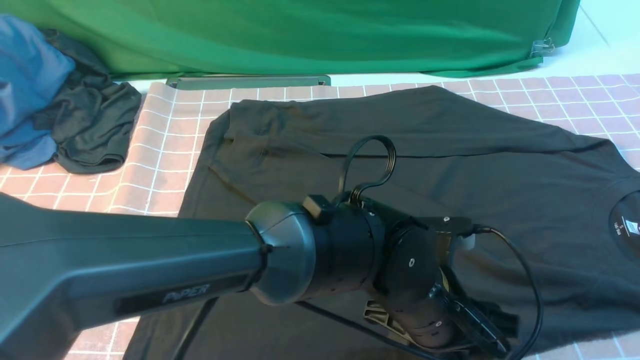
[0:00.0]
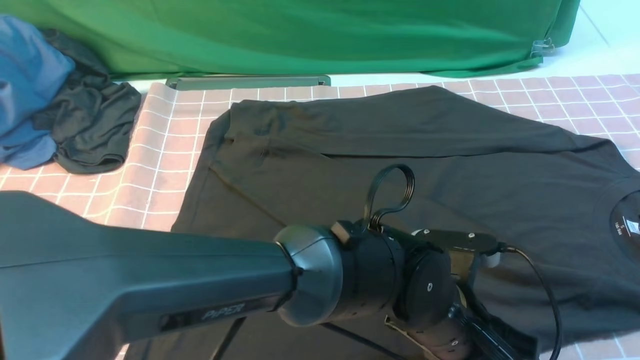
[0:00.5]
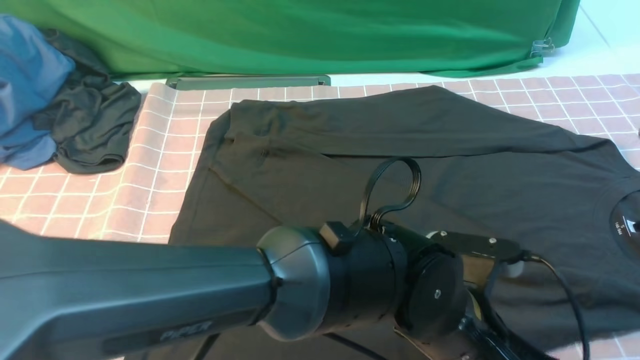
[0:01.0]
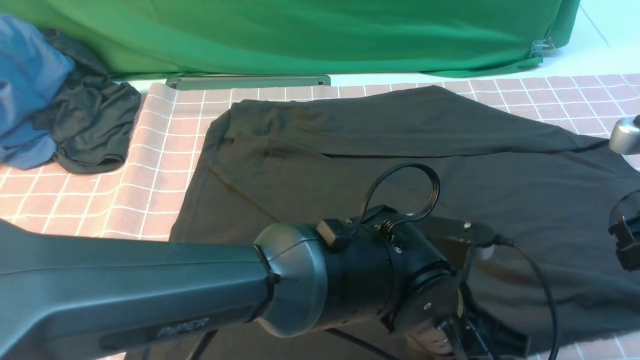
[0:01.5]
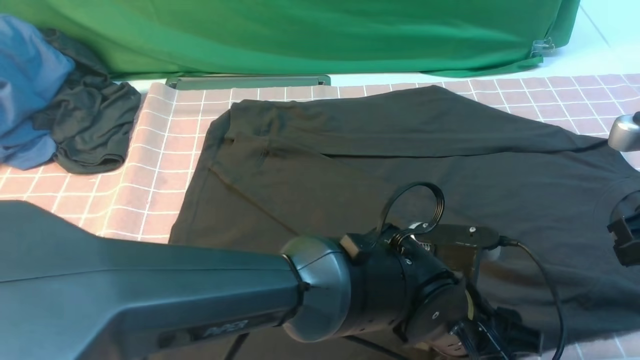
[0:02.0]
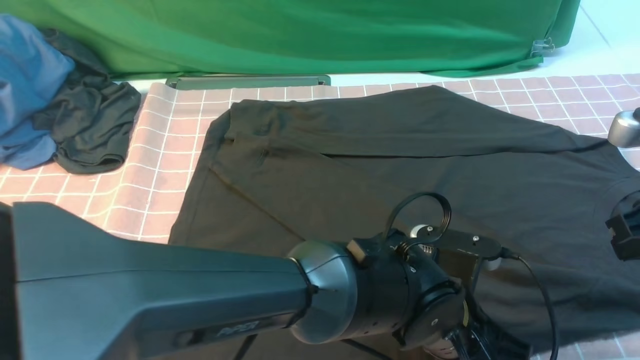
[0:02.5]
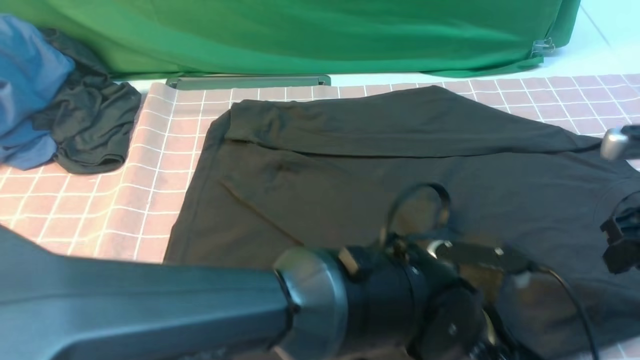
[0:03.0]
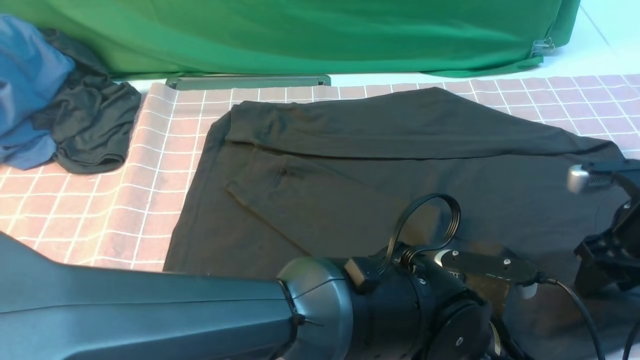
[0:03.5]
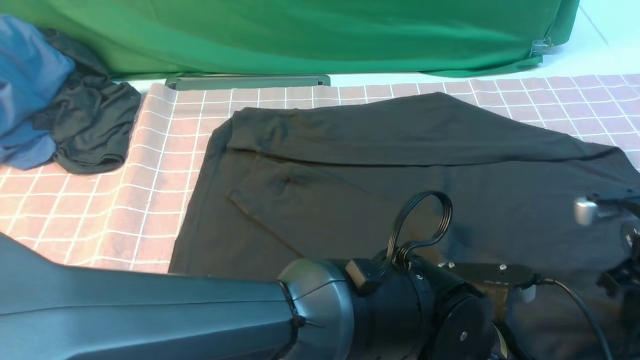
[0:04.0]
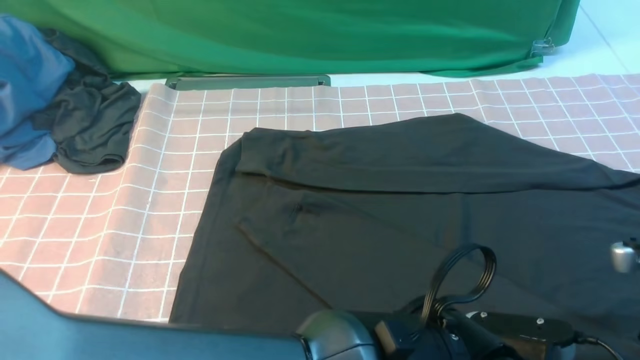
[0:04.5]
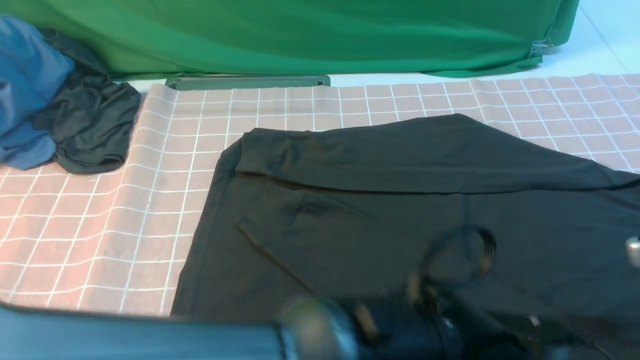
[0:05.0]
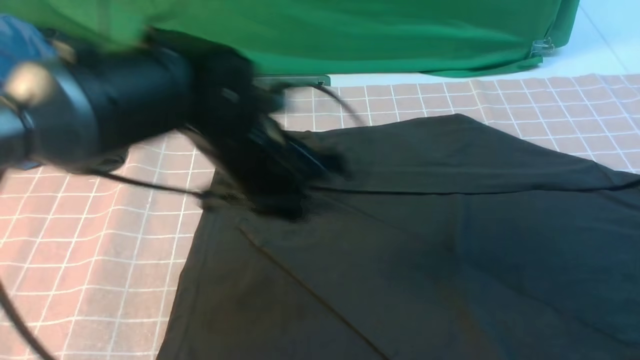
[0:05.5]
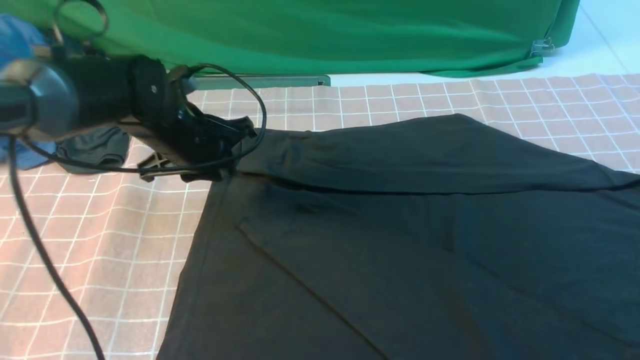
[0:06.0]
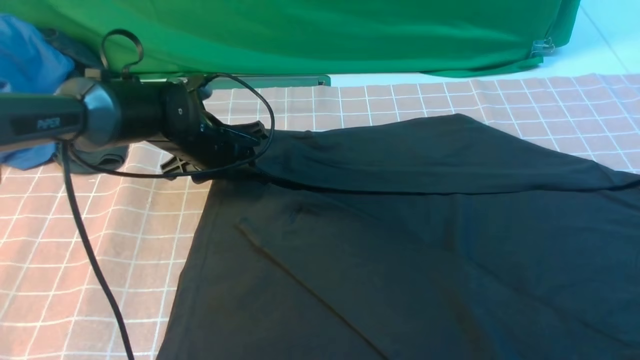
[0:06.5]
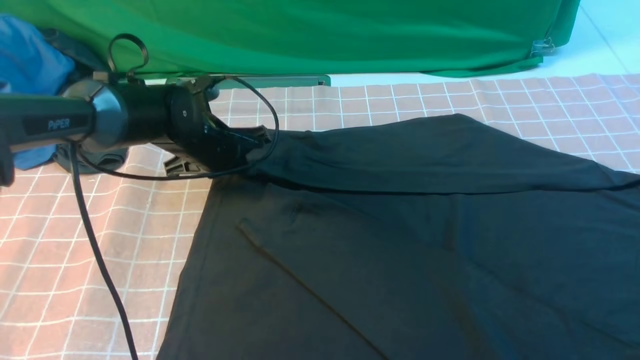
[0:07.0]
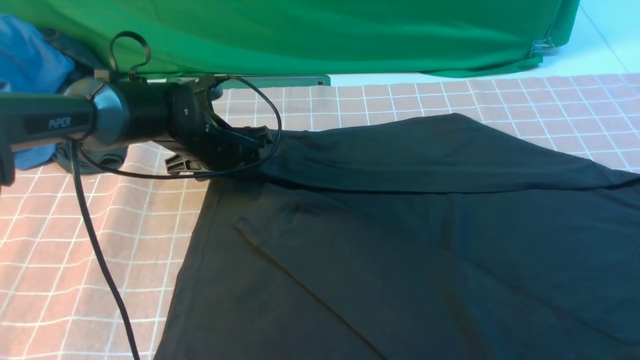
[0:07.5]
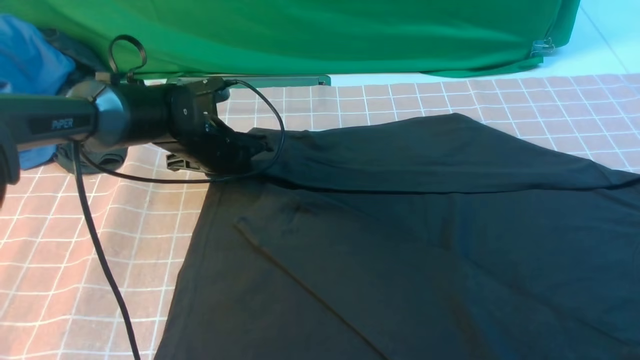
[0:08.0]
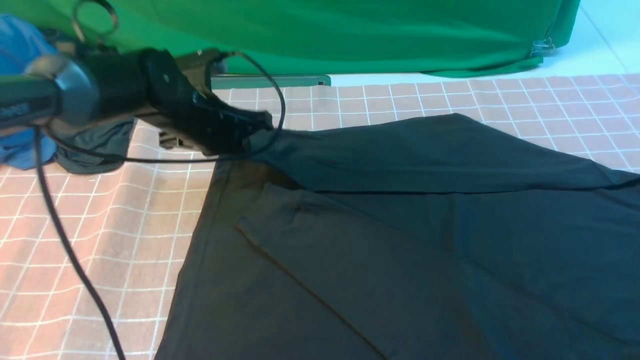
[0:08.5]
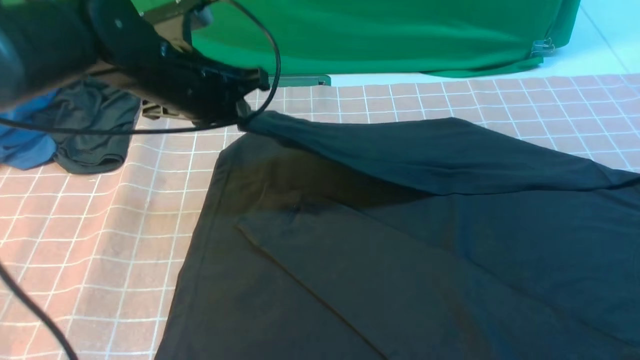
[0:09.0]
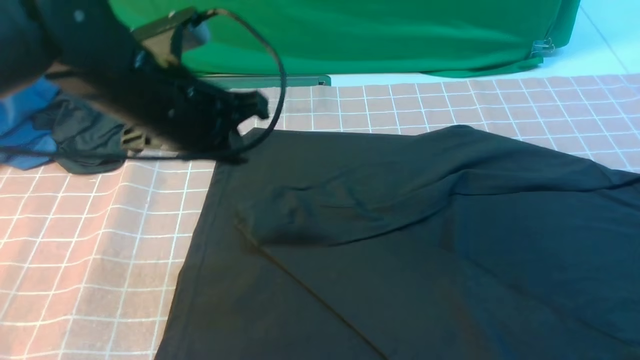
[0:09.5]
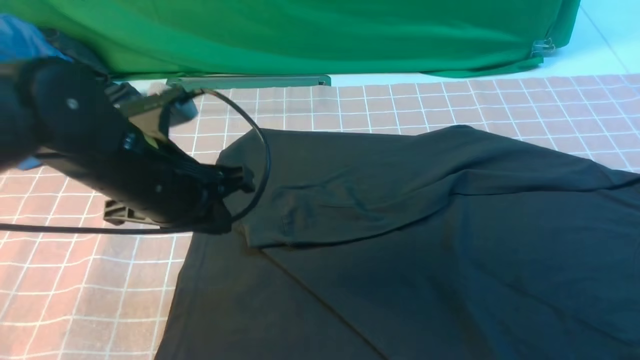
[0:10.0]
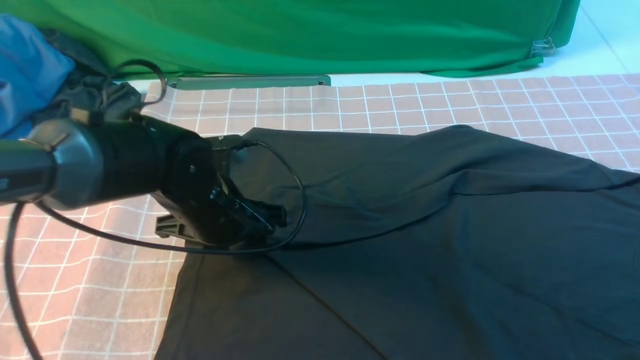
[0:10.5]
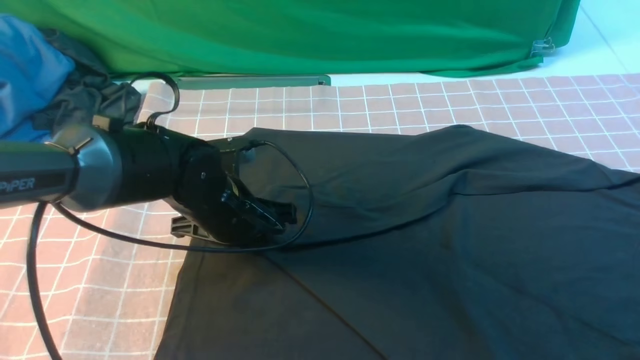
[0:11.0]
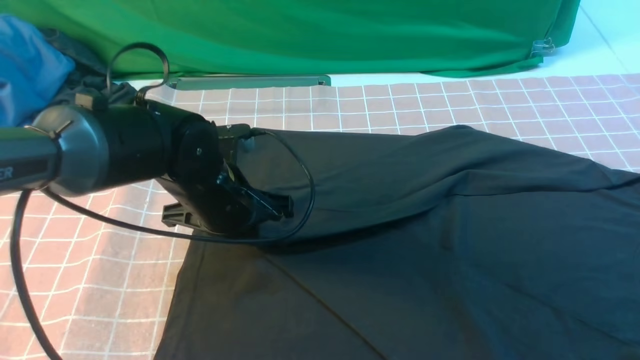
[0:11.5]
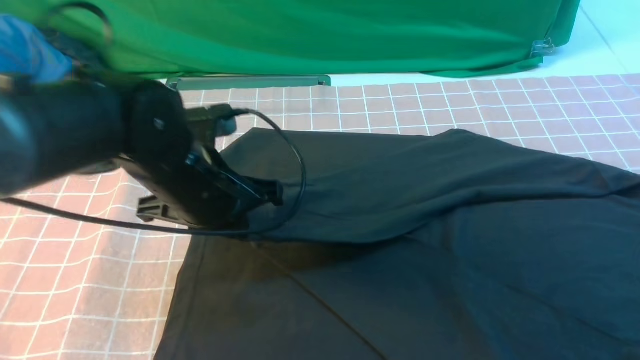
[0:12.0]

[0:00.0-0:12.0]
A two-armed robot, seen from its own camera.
Step, 0:00.0 to 0:08.0: use the left arm to clamp the cuff farthest from it.
0:00.0 to 0:02.0: The right gripper heads downward, covering approximately 5 cm; the left gripper closes and opens again.
0:02.0 to 0:04.0: The left gripper is displaced backward by some 5 cm, and closes. Meanwhile the right gripper heads downward, covering approximately 10 cm, and opens, then closes again.
0:04.0 to 0:06.0: The left gripper travels to the left and forward by some 35 cm, and opens up. Meanwhile the right gripper heads upward and backward, covering roughly 15 cm, and opens, then closes once more.
0:06.0 to 0:08.0: The left gripper ends up approximately 5 cm from where it was, and opens, then closes once more.
0:08.0 to 0:10.0: The left gripper shifts about 20 cm backward and upward.
0:10.0 to 0:12.0: The left gripper reaches about 10 cm downward, then returns, and opens, then closes once more.

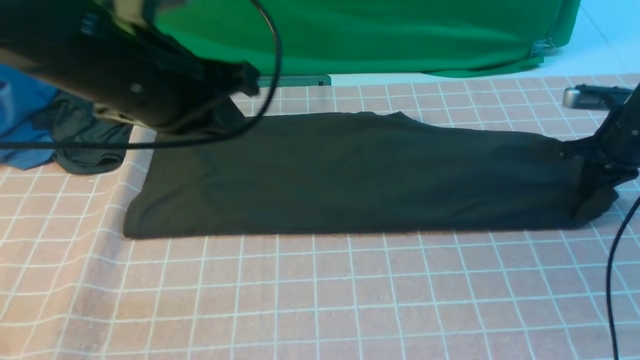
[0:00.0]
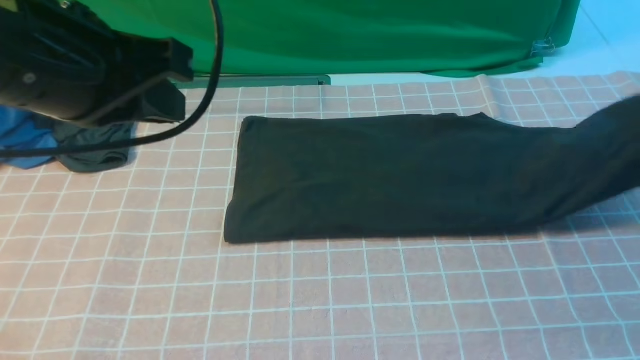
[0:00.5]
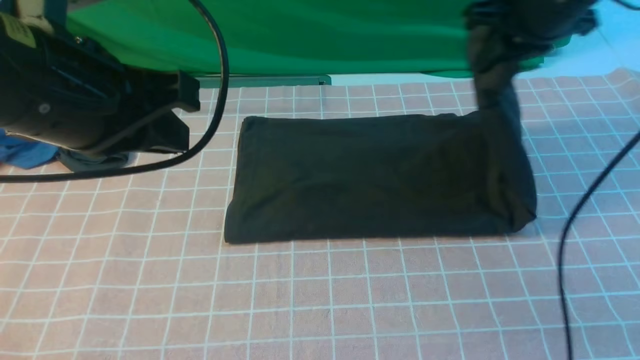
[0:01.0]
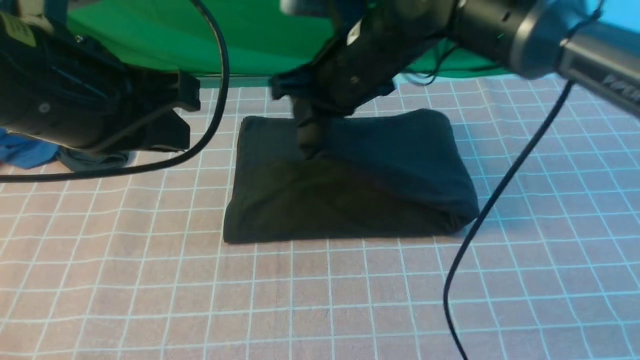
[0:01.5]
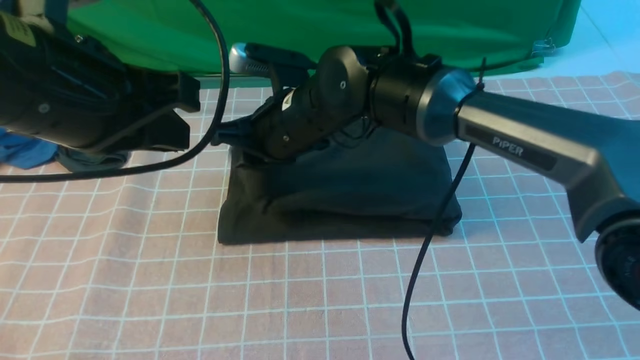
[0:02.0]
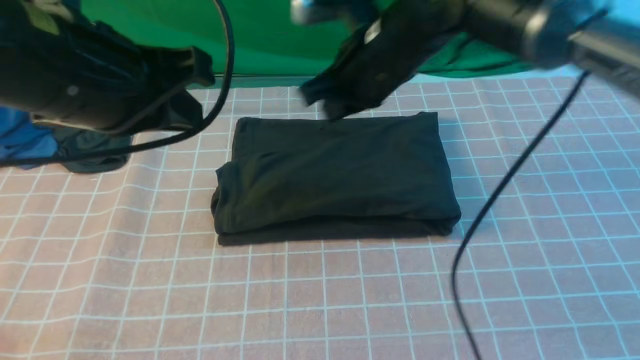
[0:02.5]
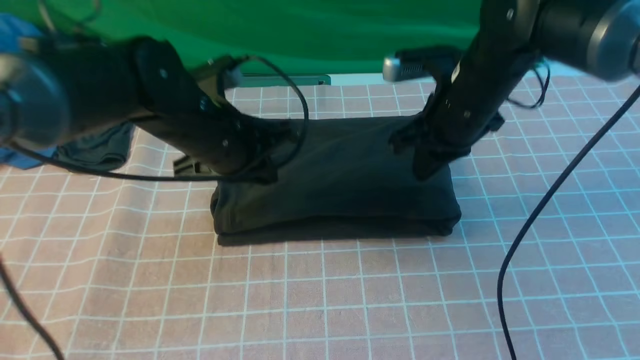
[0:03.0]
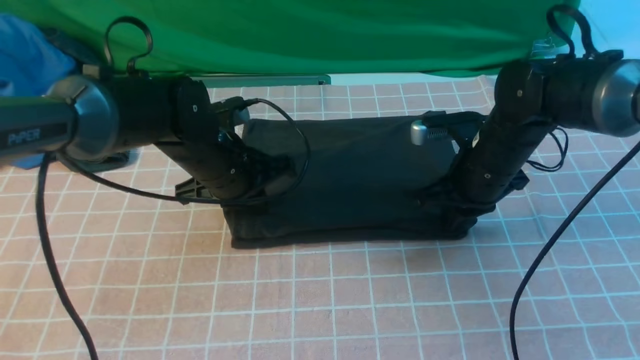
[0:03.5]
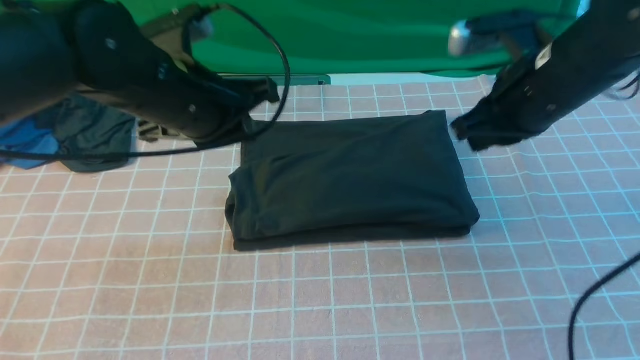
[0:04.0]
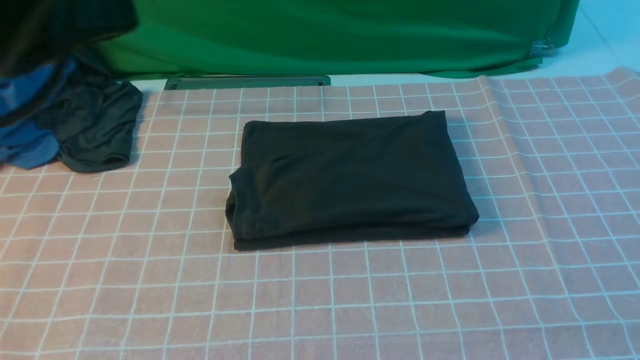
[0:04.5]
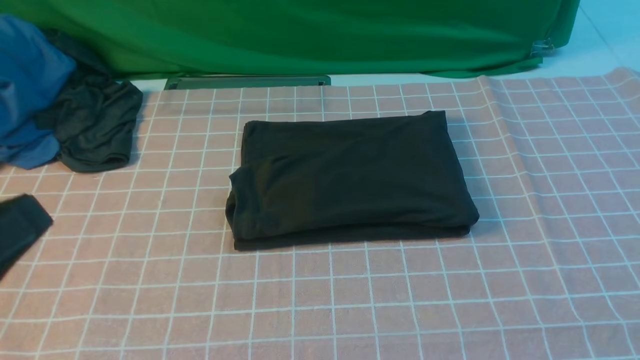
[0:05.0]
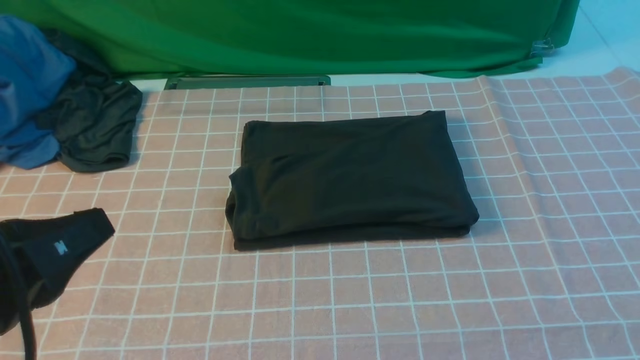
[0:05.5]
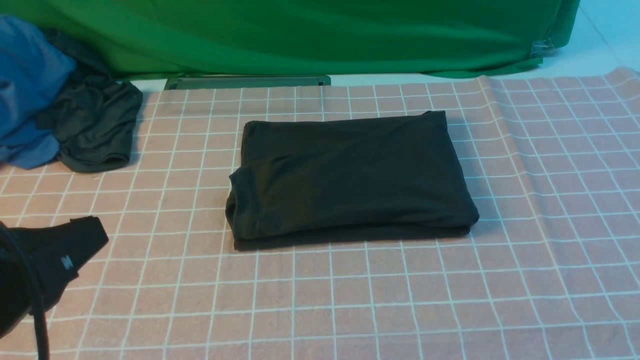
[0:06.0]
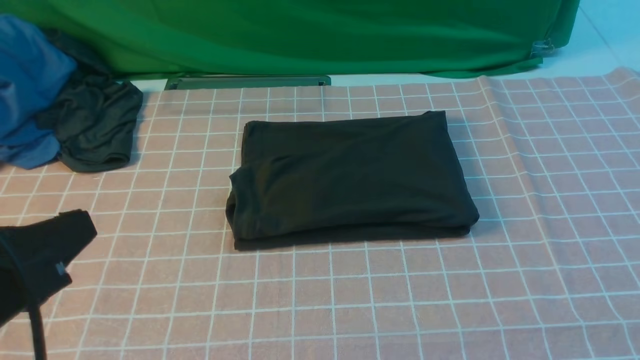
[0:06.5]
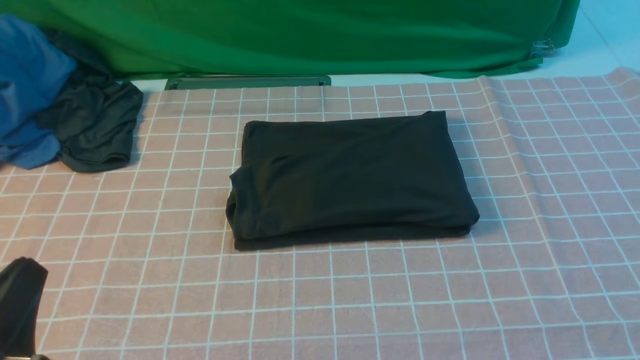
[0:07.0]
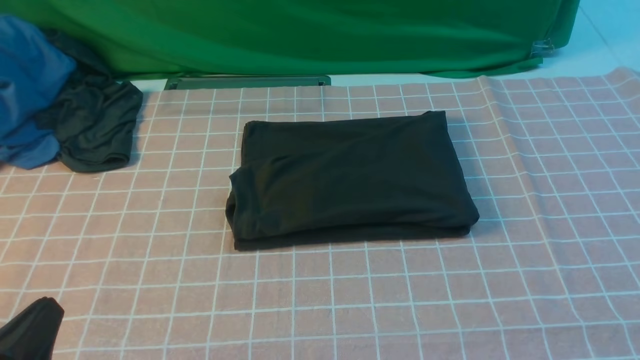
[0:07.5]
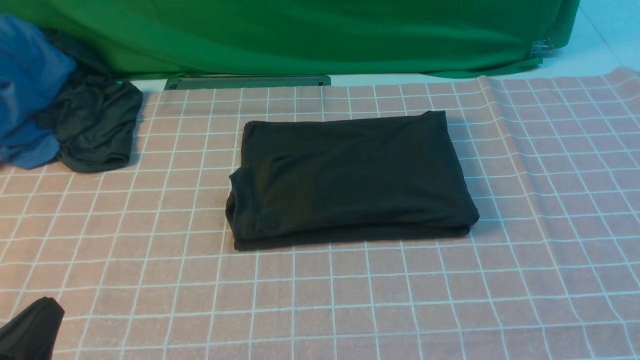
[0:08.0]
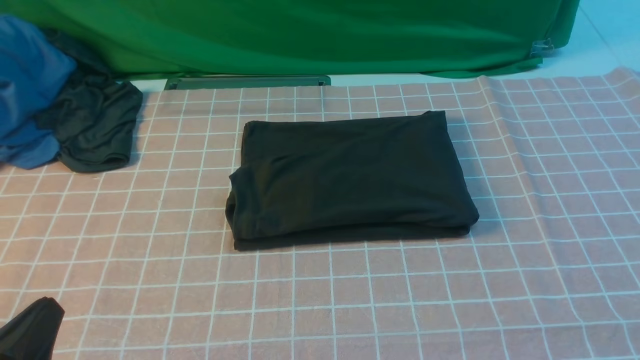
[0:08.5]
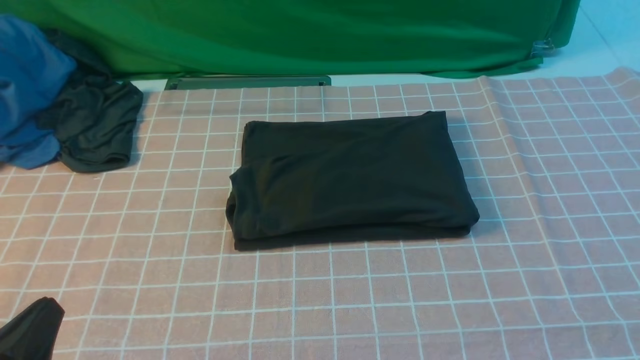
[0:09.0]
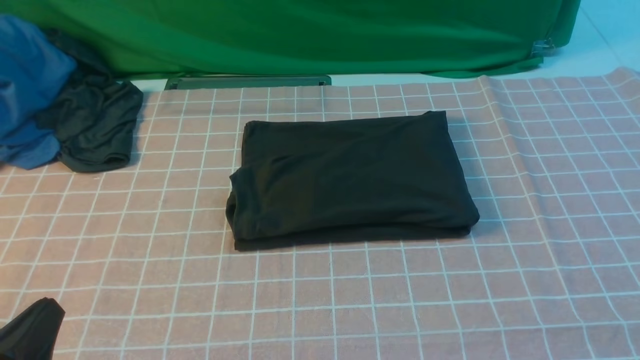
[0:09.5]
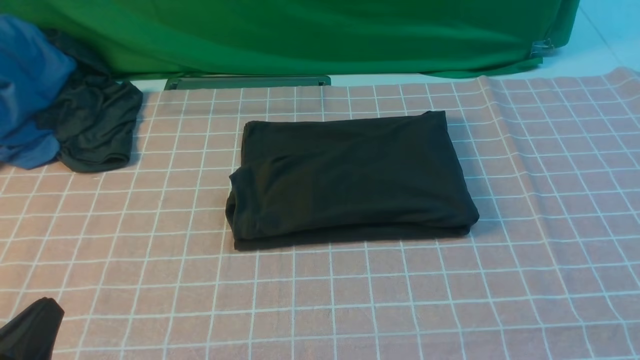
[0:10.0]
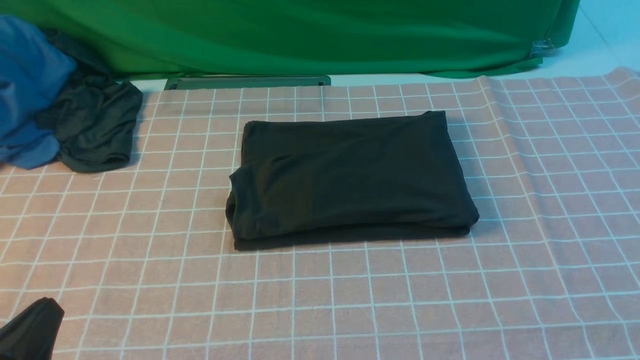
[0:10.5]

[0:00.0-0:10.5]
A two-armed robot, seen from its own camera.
Step, 0:00.0 to 0:02.0: use the right arm to drag the right edge of the fabric to the left and folds it over the left edge.
0:00.0 to 0:02.0: The left gripper goes about 5 cm backward; the right gripper shifts approximately 40 cm to the left, and opens.
0:02.0 to 0:04.0: The right gripper travels to the right and upward by some 25 cm, and closes up; the left gripper shifts approximately 10 cm forward, and goes downward and returns, some 20 cm each way.
0:04.0 to 0:06.5: Both grippers move backward, about 25 cm.
0:06.5 to 0:08.5: The left gripper heads downward, covering roughly 10 cm.
